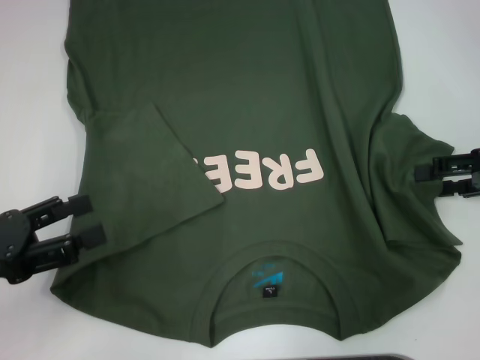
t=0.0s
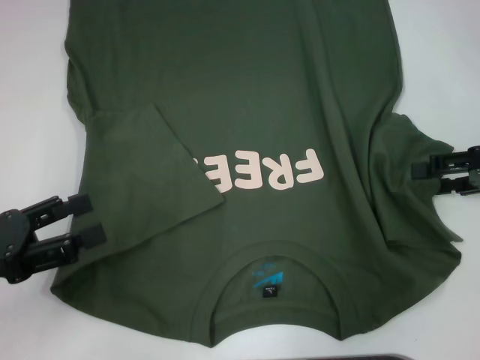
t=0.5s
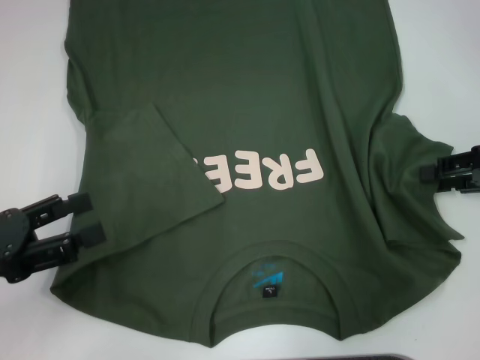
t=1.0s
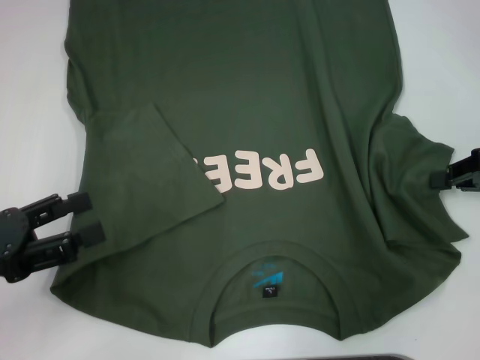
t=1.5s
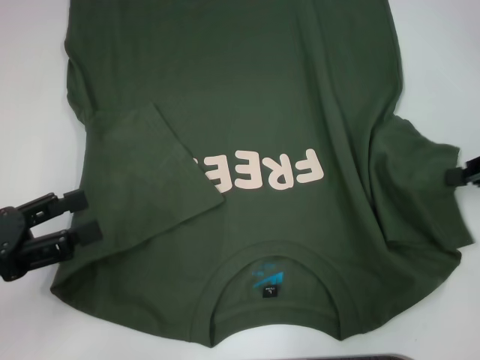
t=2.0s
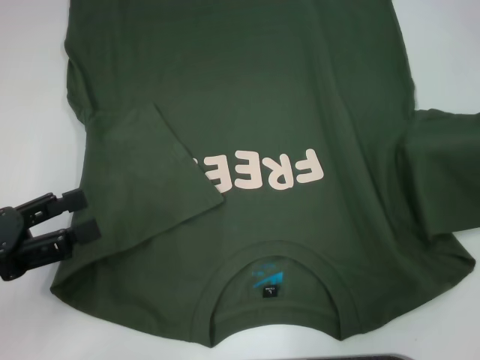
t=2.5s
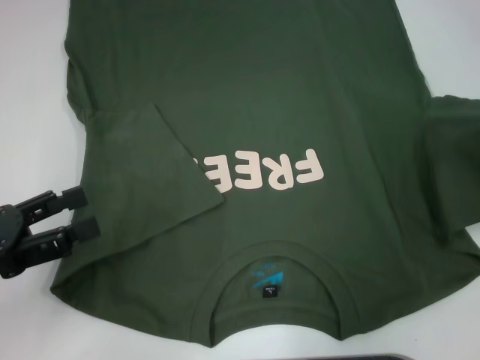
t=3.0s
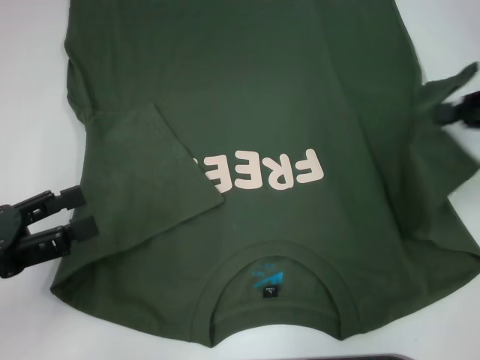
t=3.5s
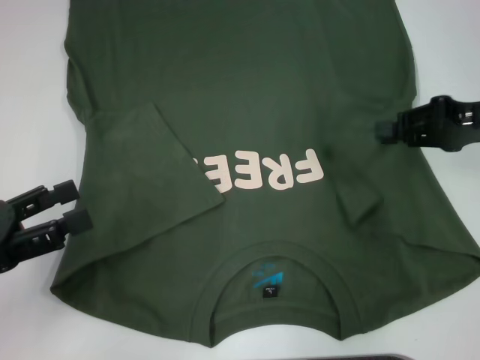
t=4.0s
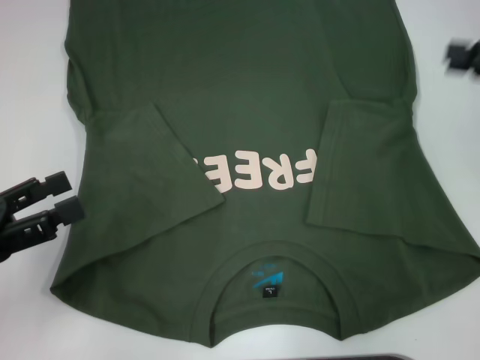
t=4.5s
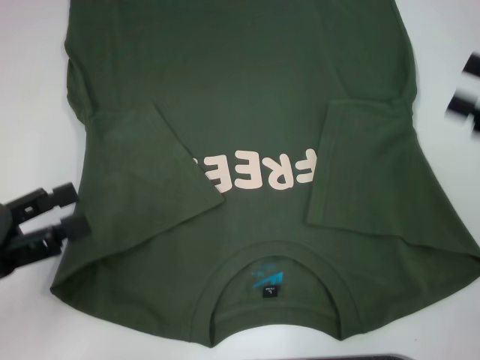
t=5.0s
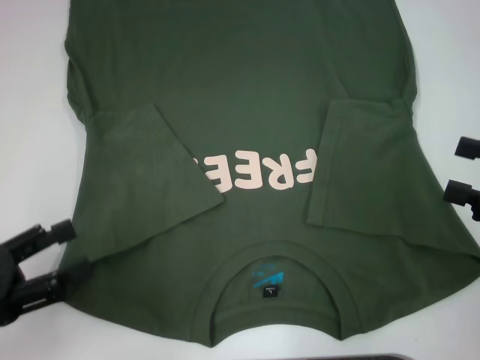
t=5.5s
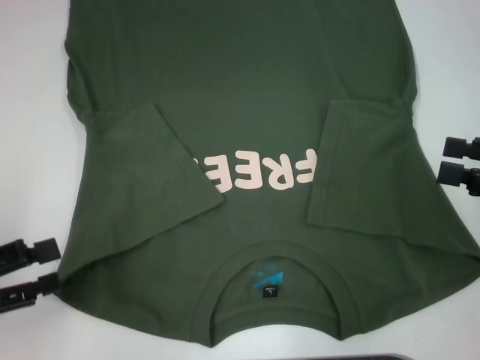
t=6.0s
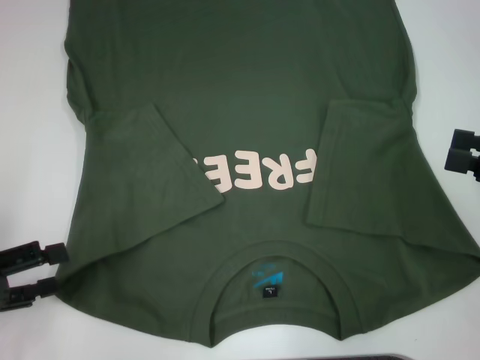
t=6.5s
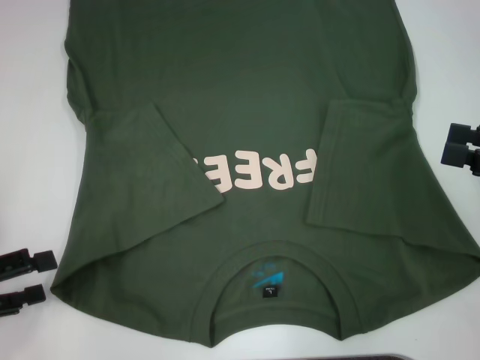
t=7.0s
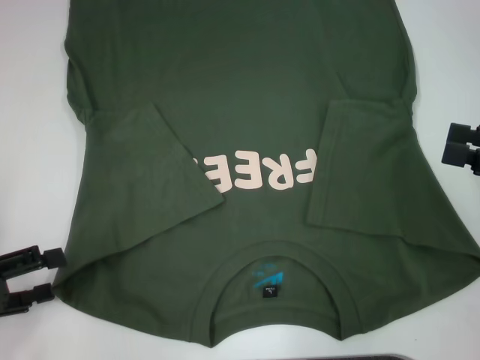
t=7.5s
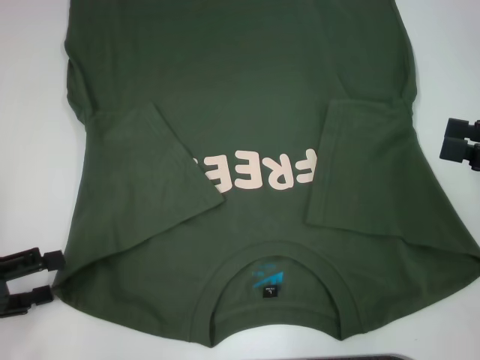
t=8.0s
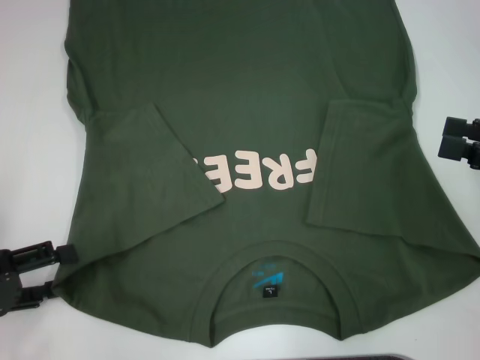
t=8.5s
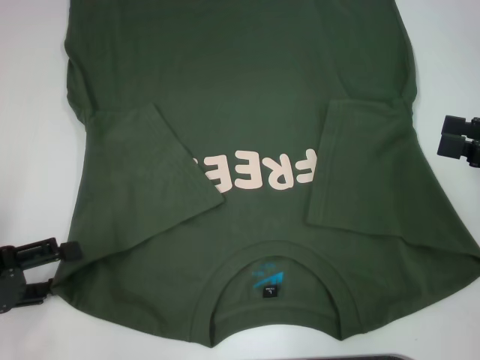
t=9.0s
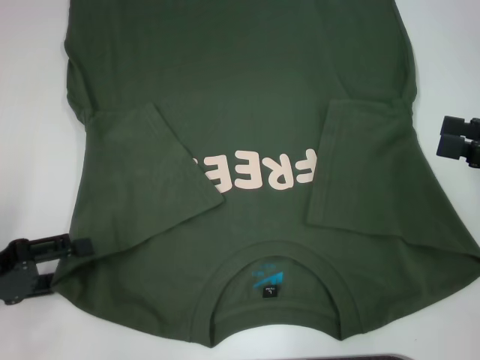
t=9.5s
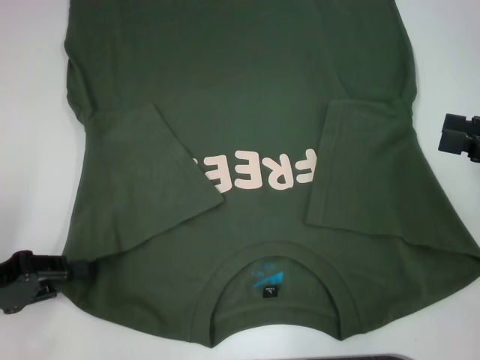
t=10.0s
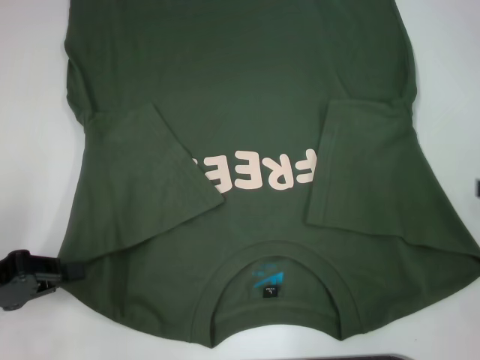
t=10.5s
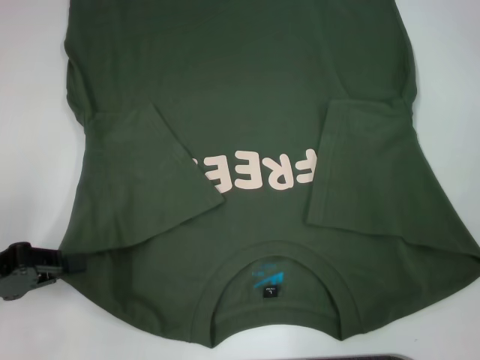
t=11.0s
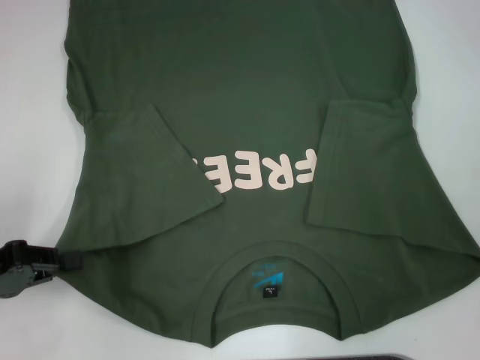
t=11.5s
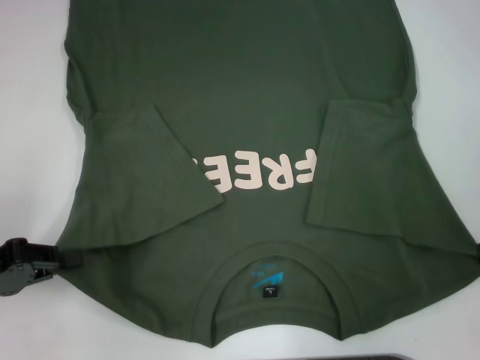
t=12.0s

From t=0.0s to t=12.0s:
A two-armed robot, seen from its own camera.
Step, from t=0.0s to t=4.0s: Fold the bottom right sleeve with your right hand.
Step, from t=4.5s to t=10.0s: Grab the bottom left corner with your left hand.
From t=0.0s to t=2.0s: The right gripper closes up.
From t=2.0s to t=4.0s: The right gripper goes approximately 5 cm to the left.
From t=4.0s to t=6.0s: The right gripper goes approximately 10 cm backward, and opens up.
From t=6.0s to t=8.0s: The grippers make only small movements.
From t=8.0s to t=10.0s: The left gripper closes.
From t=10.0s to t=12.0s: The left gripper closes up.

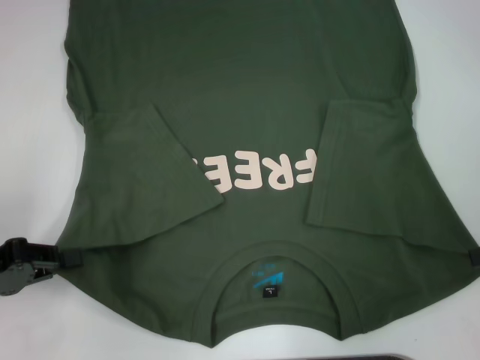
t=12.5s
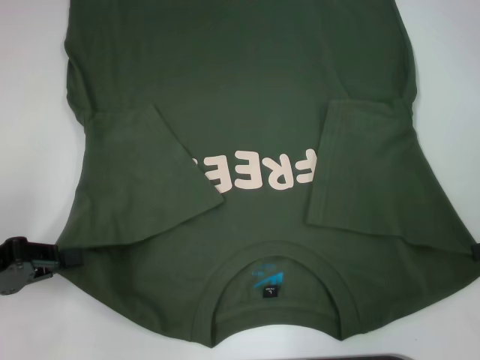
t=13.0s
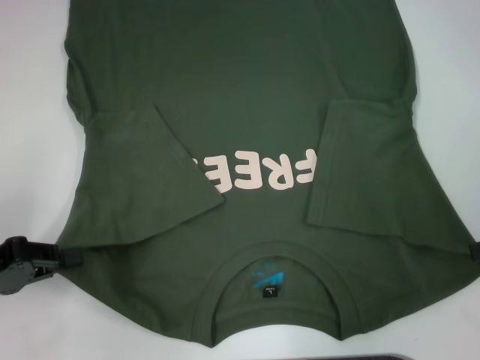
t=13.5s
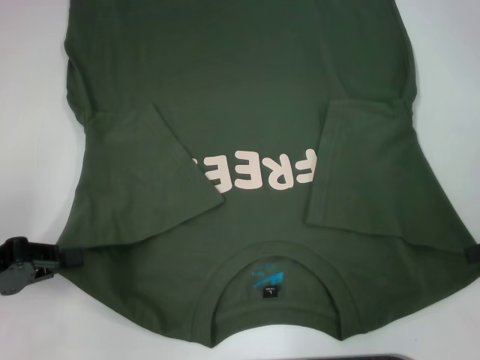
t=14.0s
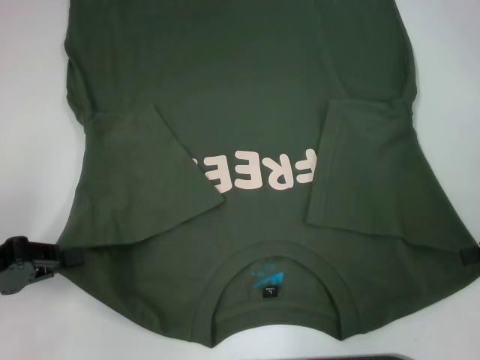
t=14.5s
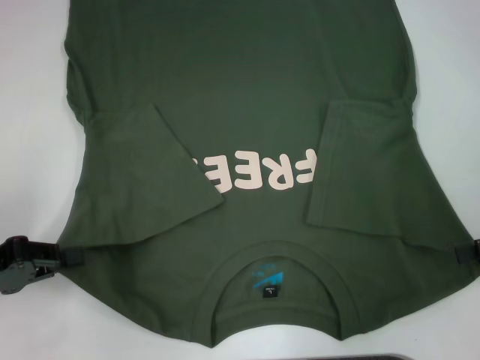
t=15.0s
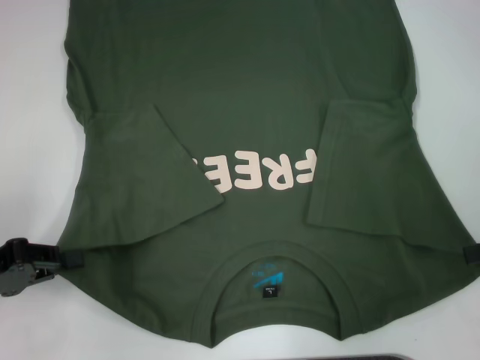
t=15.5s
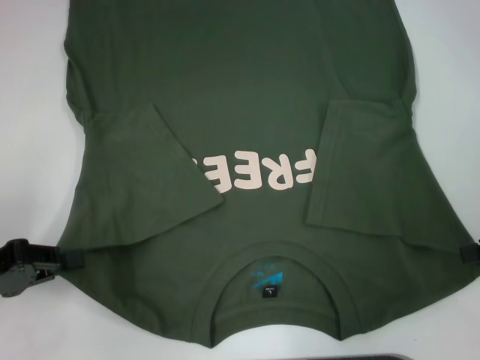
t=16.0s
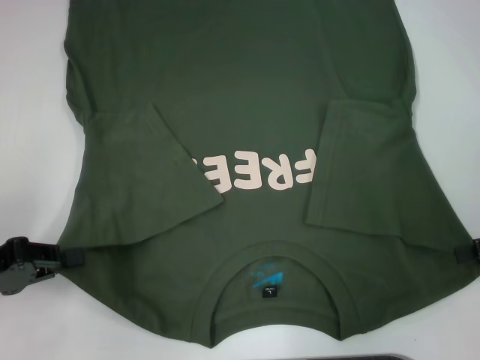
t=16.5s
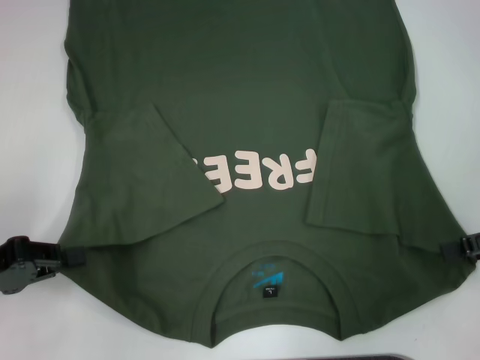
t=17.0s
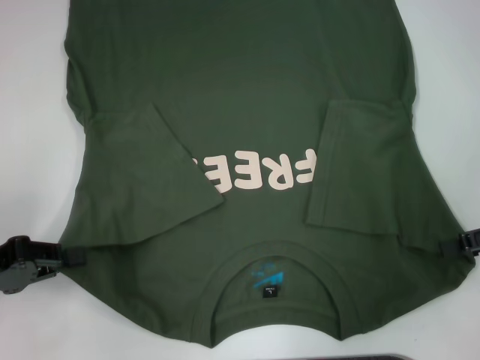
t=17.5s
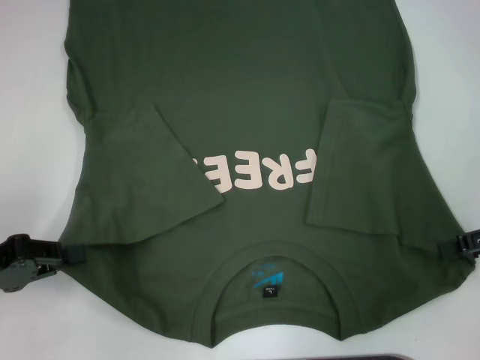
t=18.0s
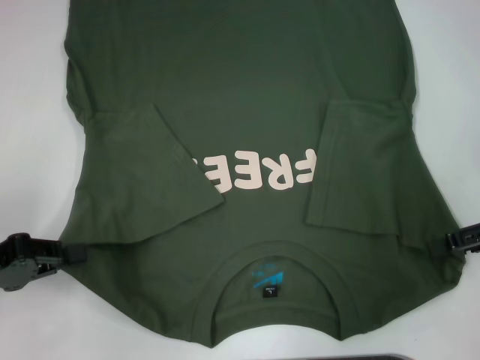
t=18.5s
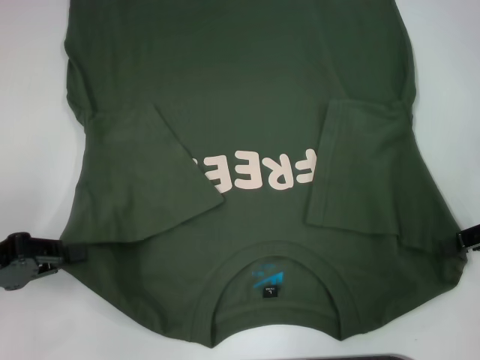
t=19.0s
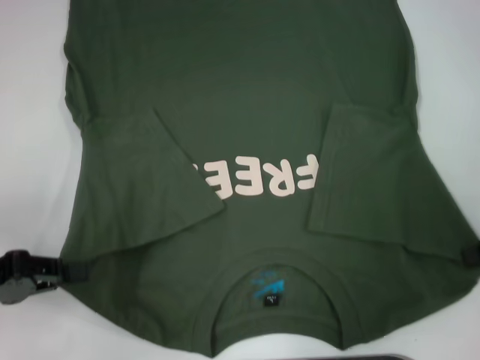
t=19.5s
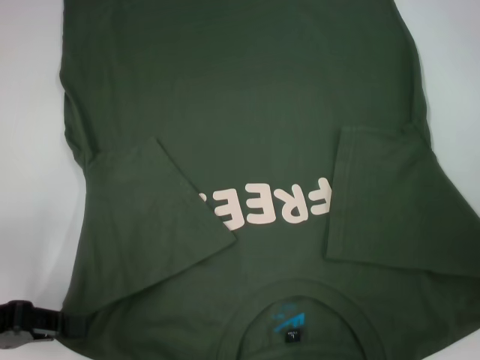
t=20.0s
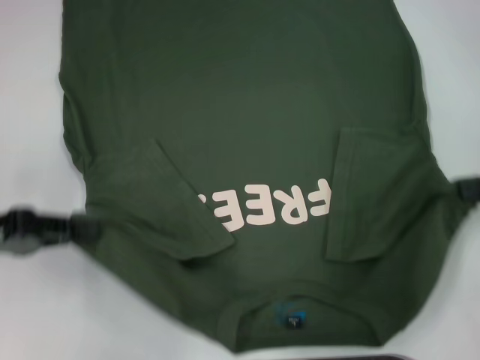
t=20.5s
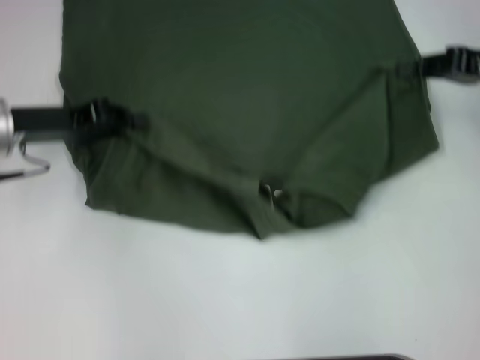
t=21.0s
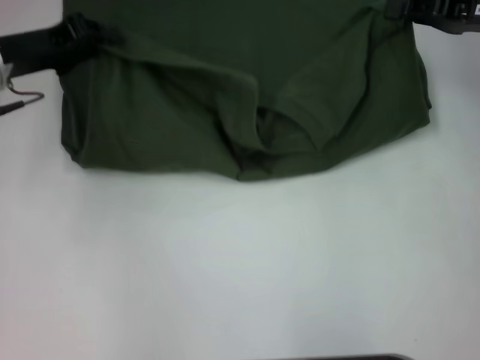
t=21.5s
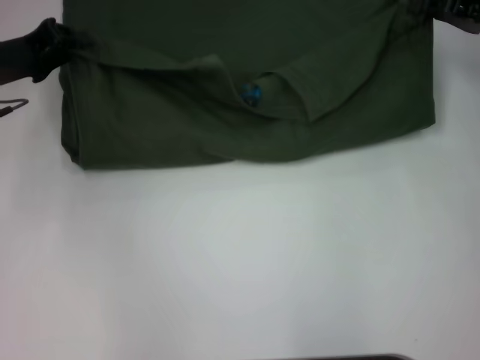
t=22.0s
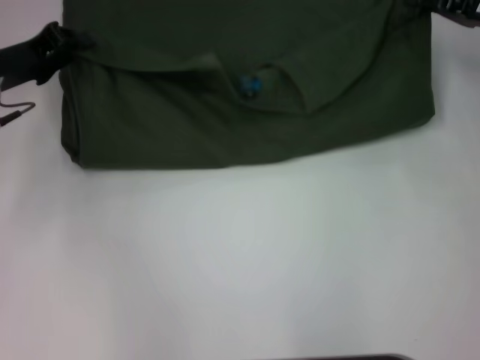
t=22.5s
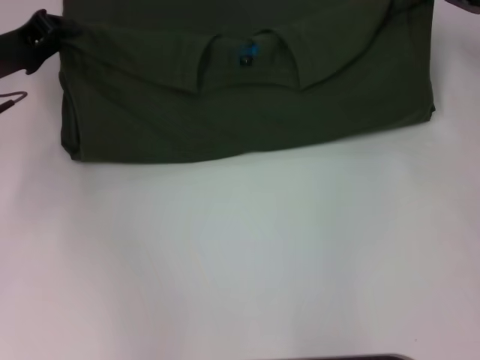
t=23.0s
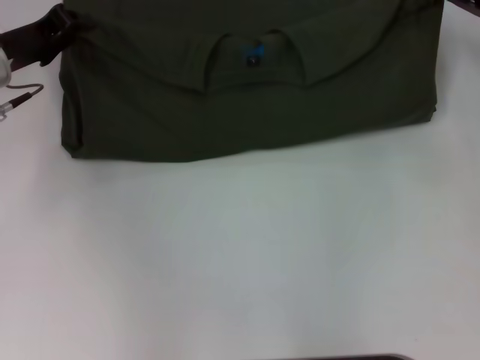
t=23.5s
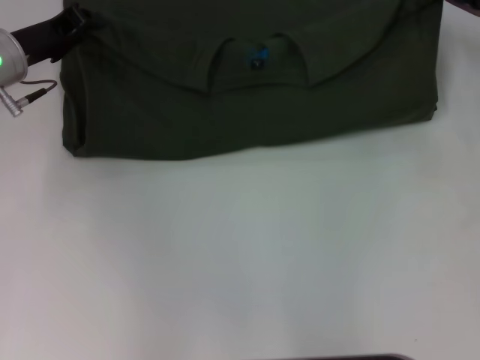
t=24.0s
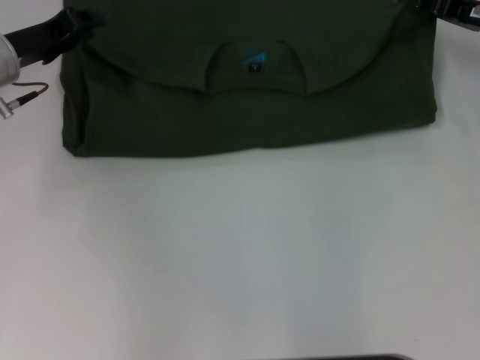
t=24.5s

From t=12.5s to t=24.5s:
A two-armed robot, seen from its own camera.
Step, from t=12.5s to t=19.5s: Grab the bottom right corner with your right hand.
From t=12.5s to t=14.5s: Both grippers stay put.
From t=14.5s to t=16.5s: Both grippers stay about where they are.
From t=16.5s to t=18.5s: The grippers stay close to where they were, moving slightly.
From t=18.5s to t=20.5s: The right gripper closes up.
From t=20.5s to t=22.5s: The right gripper shifts some 15 cm forward and to the left. The left gripper is displaced forward by some 15 cm.

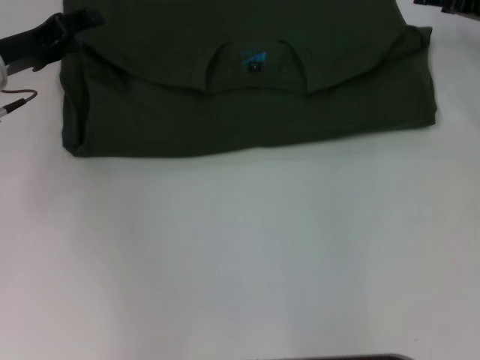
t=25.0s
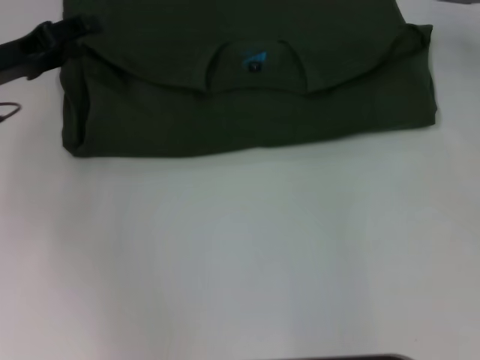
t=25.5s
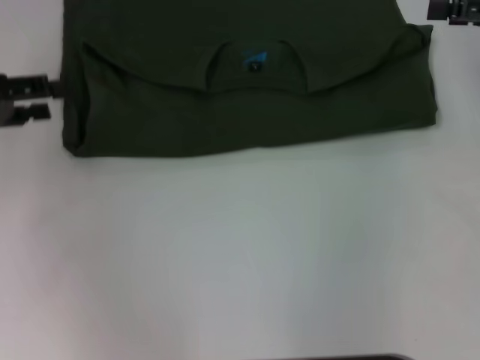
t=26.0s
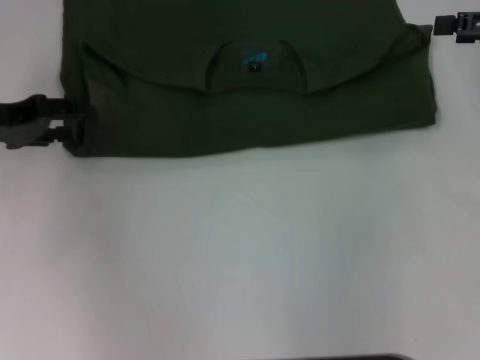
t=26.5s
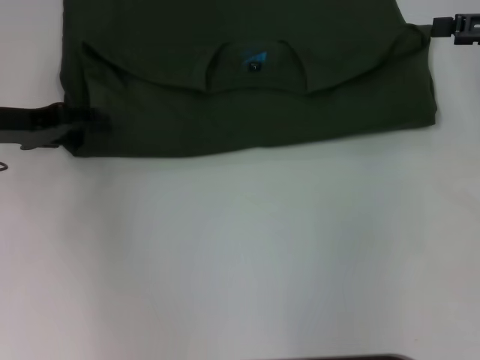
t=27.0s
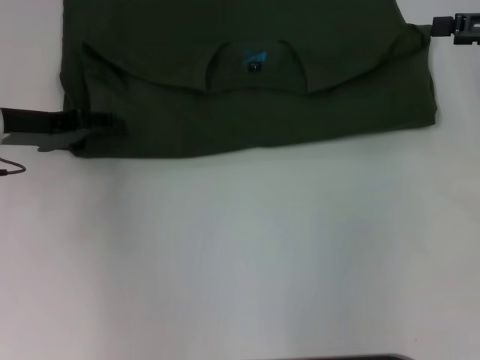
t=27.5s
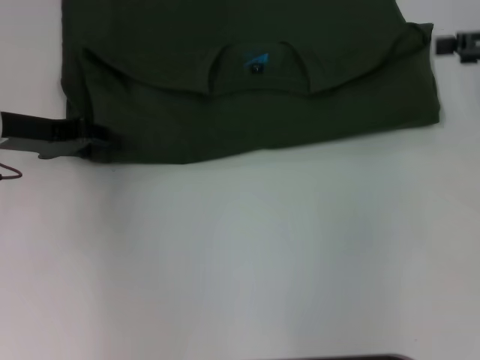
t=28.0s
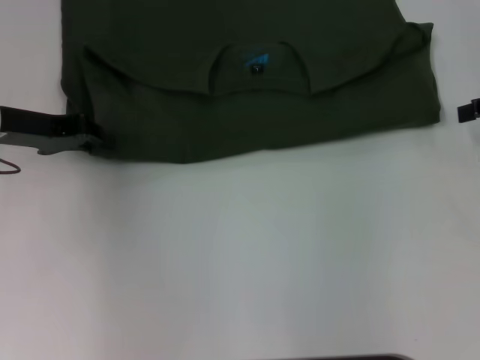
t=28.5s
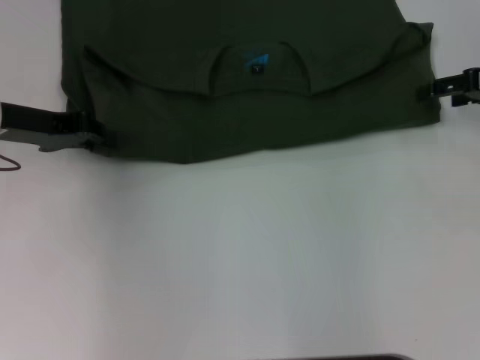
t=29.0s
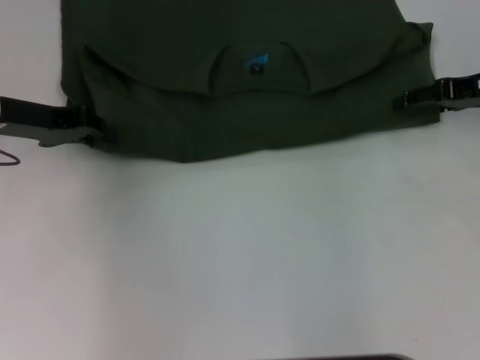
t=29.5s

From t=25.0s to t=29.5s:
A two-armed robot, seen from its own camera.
From t=25.0s to t=27.0s: The right gripper is displaced backward and upward by about 10 cm, and opens up.
From t=27.0s to t=29.5s: The left gripper closes its fingers. The right gripper moves downward, roughly 5 cm.
